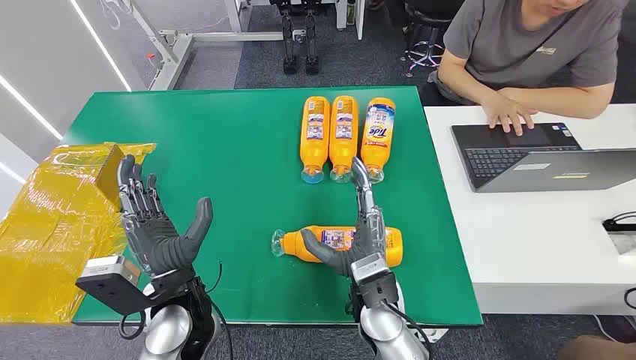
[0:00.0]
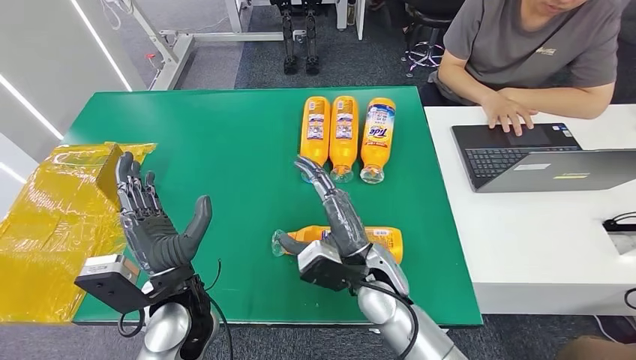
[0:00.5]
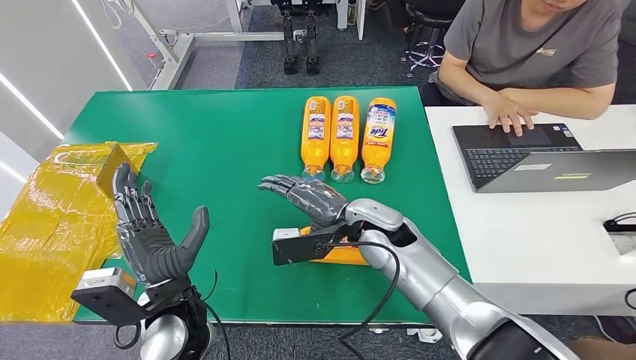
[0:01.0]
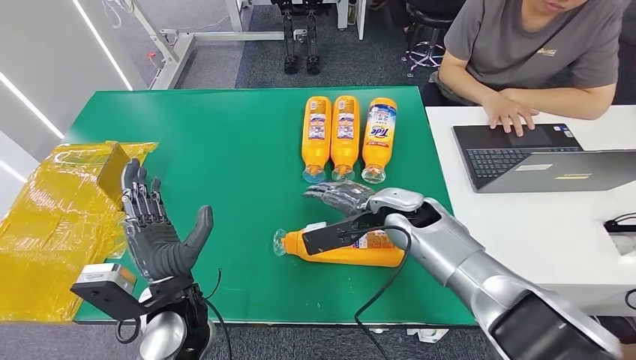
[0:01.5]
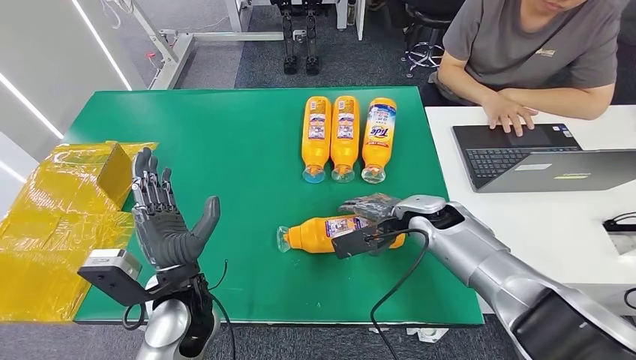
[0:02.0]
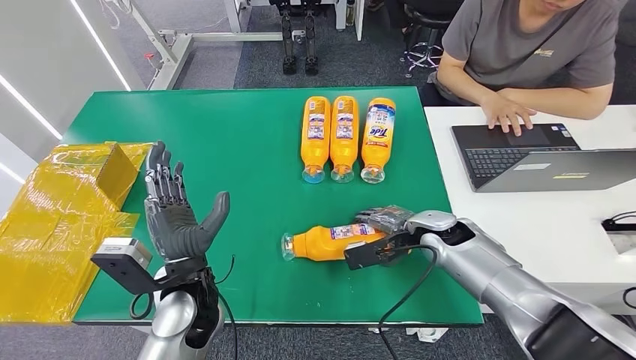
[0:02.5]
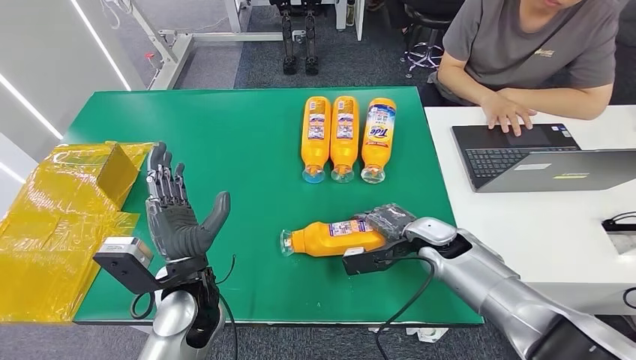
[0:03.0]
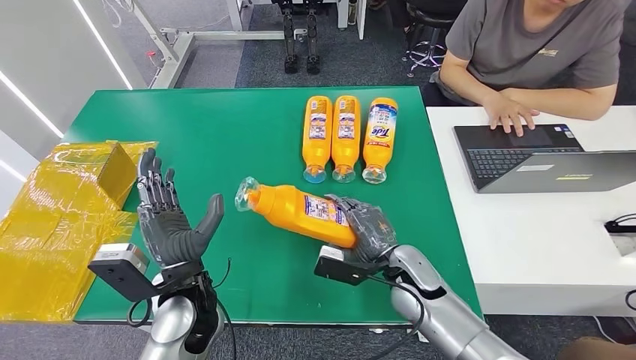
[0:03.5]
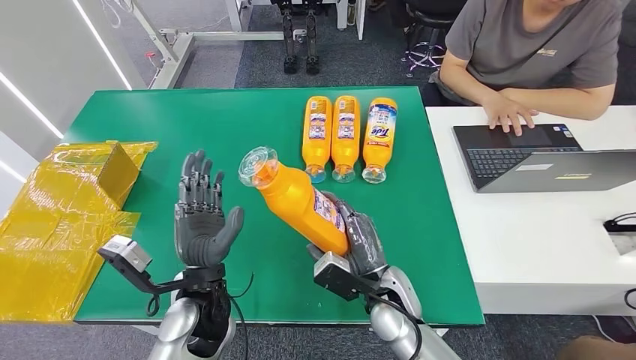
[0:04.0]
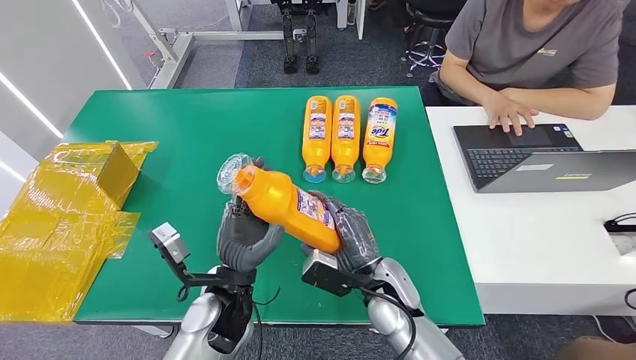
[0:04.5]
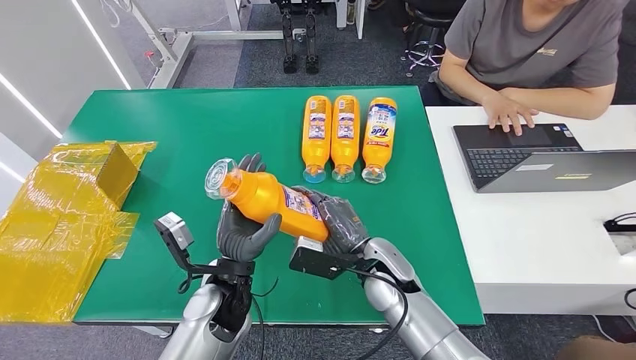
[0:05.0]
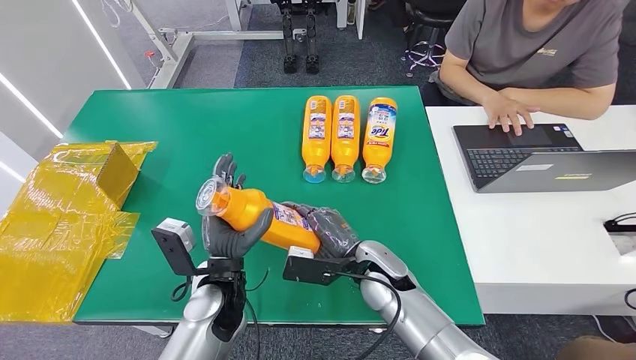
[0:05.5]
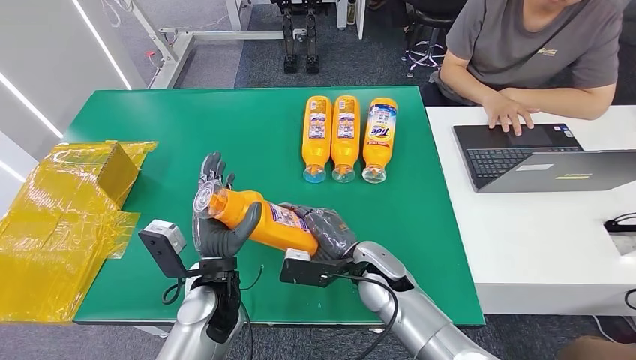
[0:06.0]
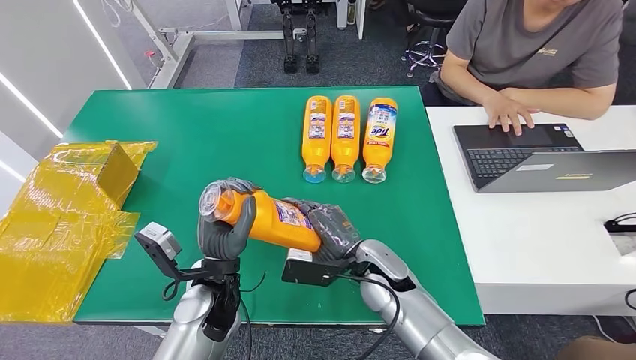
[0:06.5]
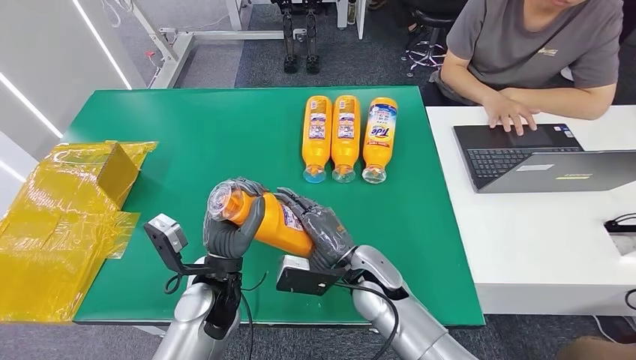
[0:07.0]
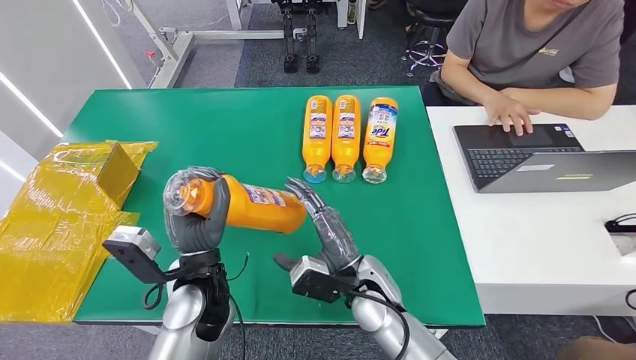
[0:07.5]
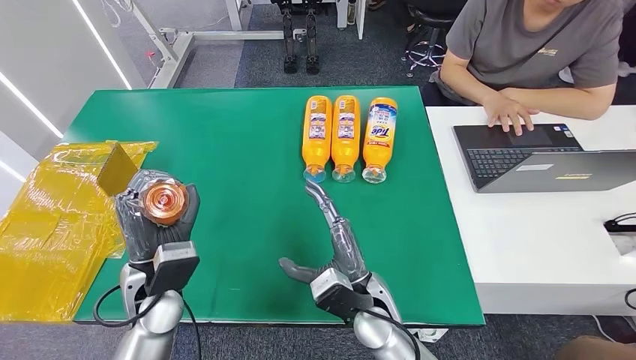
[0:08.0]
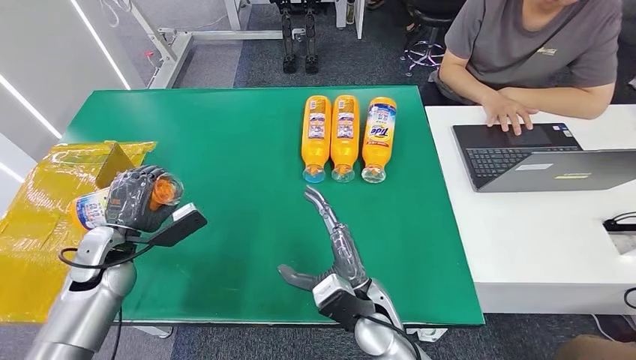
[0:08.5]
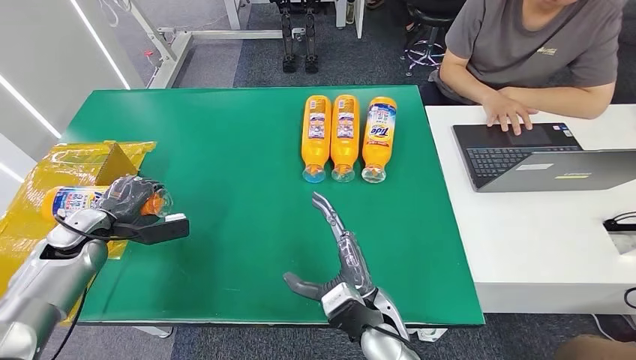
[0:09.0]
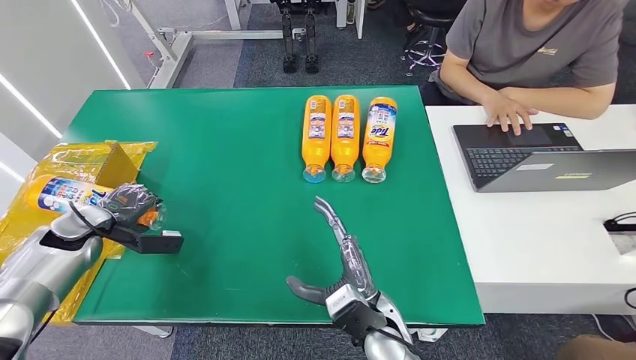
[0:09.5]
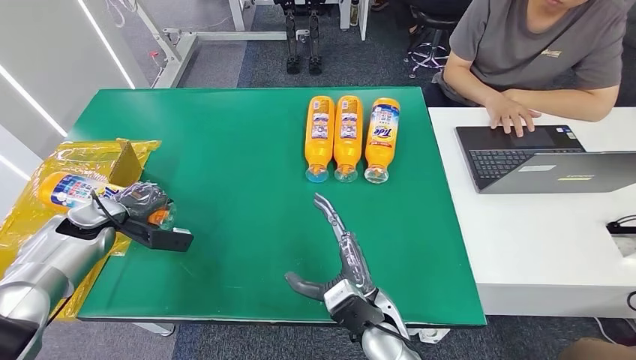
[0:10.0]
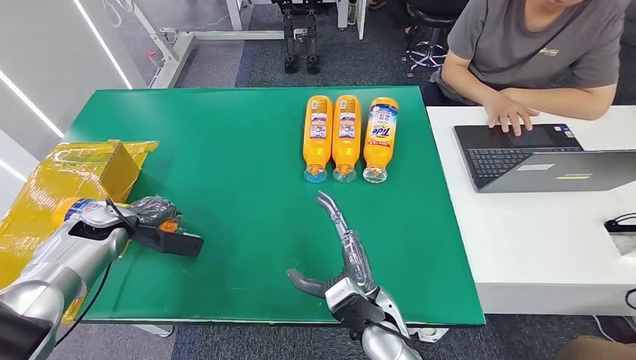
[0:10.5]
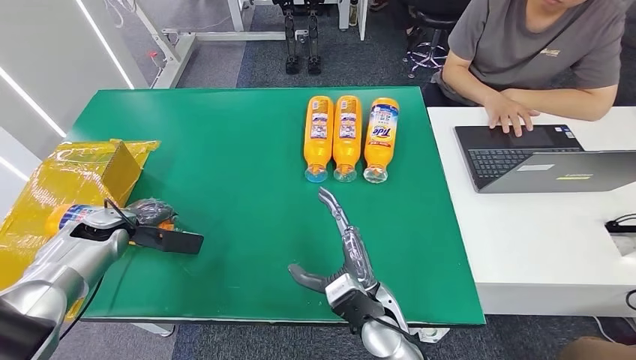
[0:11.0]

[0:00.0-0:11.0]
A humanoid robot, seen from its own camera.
Step, 0:00.0 to 0:03.5: Pick up the bottle from the table.
0:02.0 to 0:03.5: The right hand heads backward and downward, covering approximately 10 cm.
0:03.5 to 0:05.5: The left hand moves some 5 cm. Meanwhile the right hand is displaced to the left by approximately 5 cm.
0:07.5 to 0:09.0: The right hand heads backward, covering some 5 cm. The left hand is displaced to the left and forward by some 30 cm.

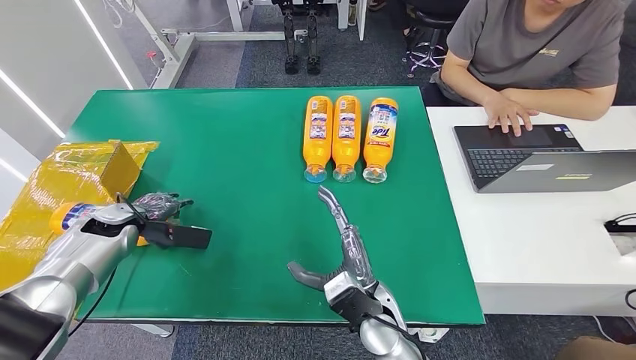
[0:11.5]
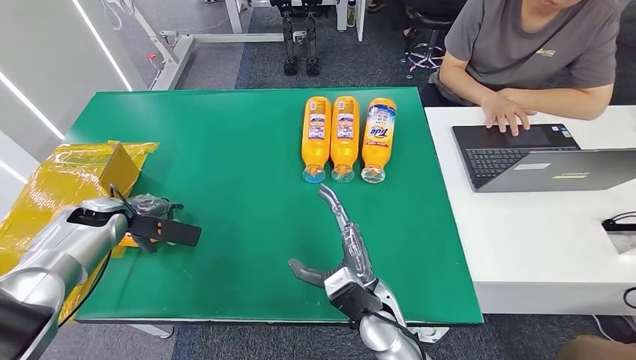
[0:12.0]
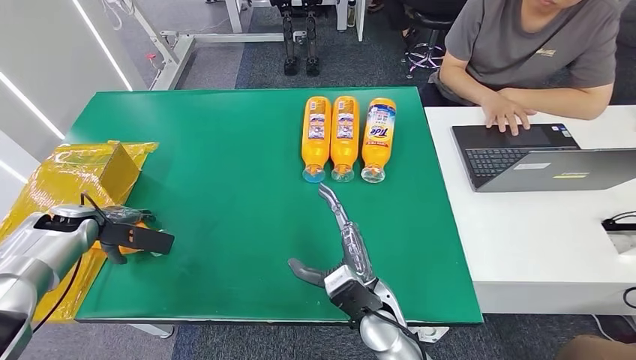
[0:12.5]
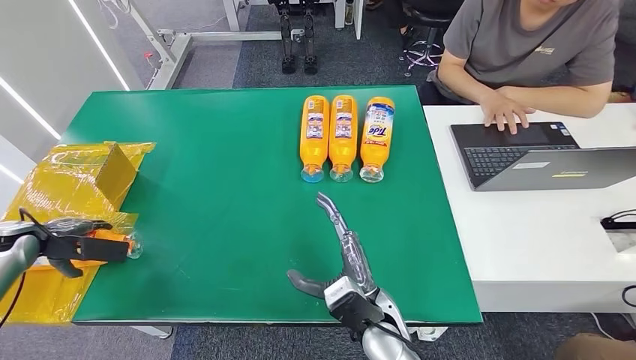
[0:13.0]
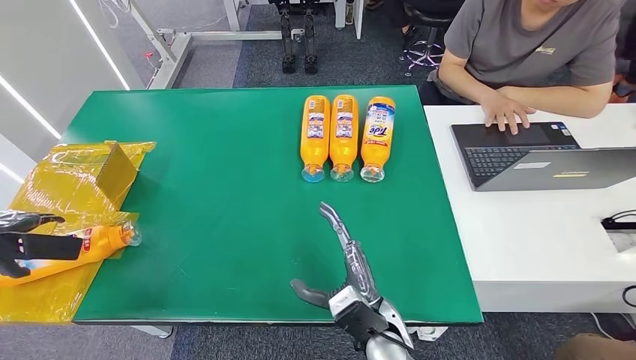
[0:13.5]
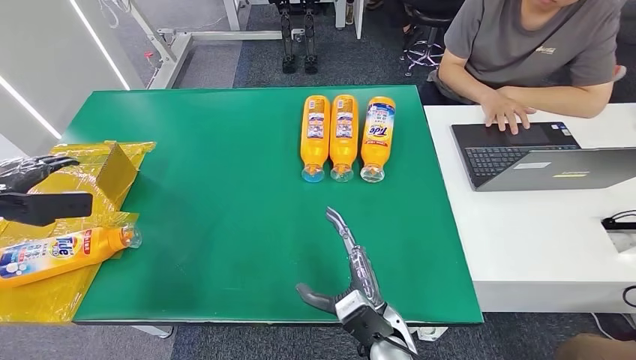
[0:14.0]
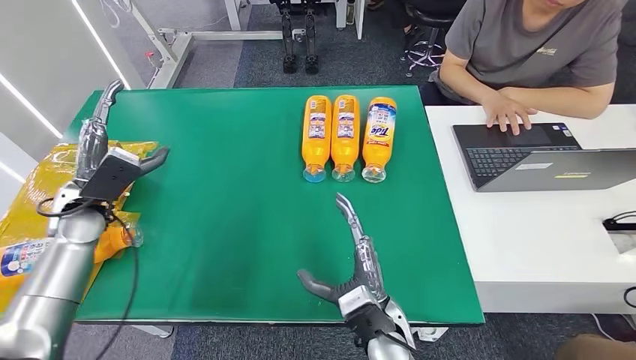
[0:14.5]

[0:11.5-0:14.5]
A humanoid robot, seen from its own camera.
Step, 0:11.5 to 0:14.5: Turn the bottle to the front side.
0:13.0 to 0:14.5: The left hand moves to the right, approximately 15 cm.

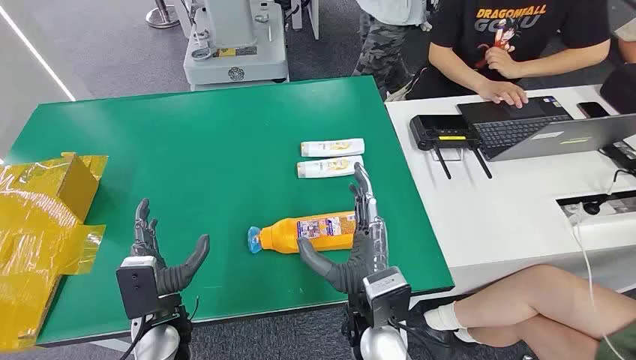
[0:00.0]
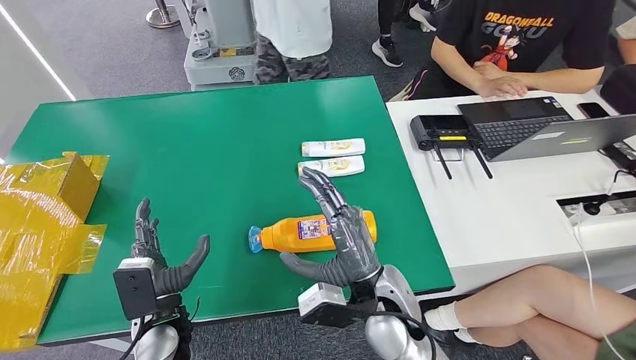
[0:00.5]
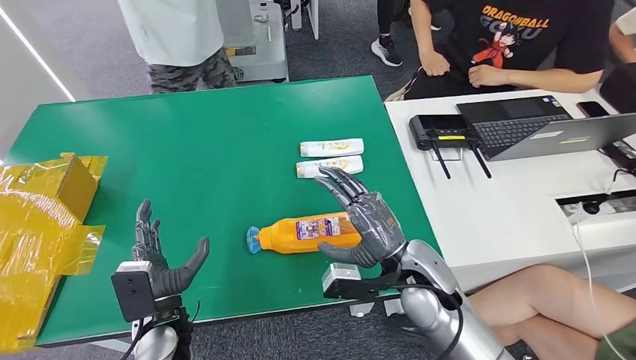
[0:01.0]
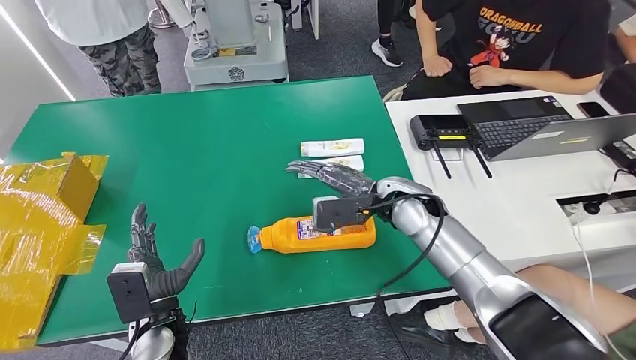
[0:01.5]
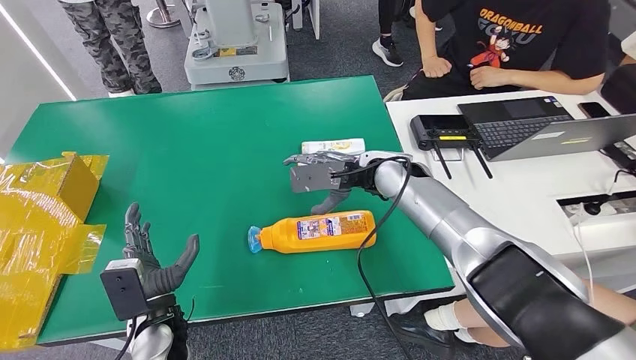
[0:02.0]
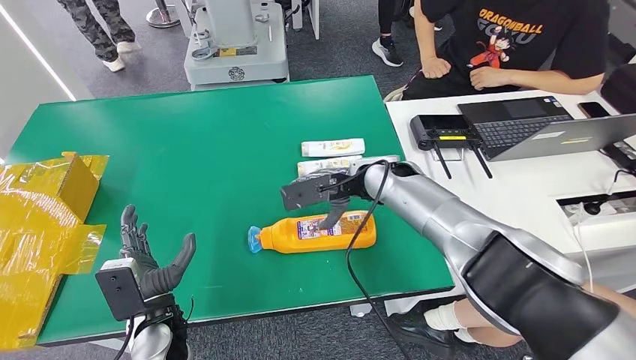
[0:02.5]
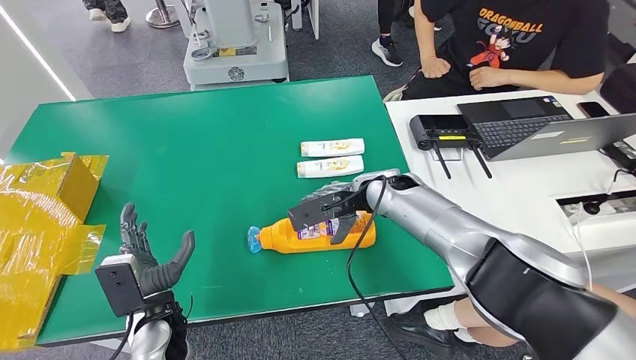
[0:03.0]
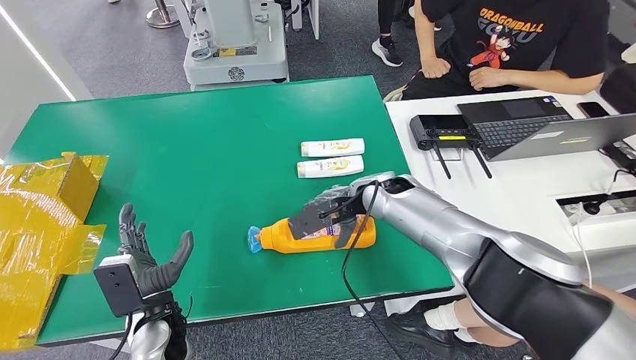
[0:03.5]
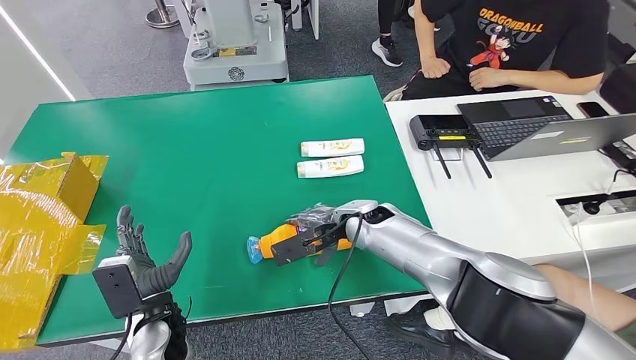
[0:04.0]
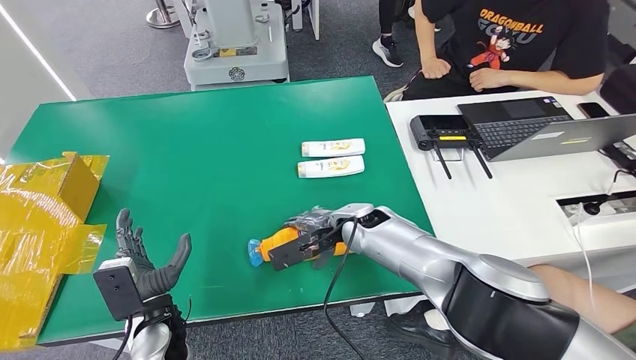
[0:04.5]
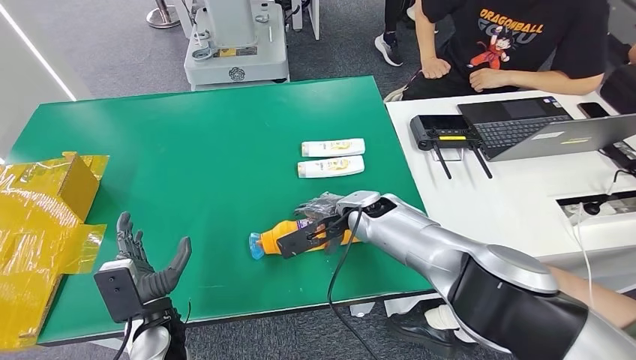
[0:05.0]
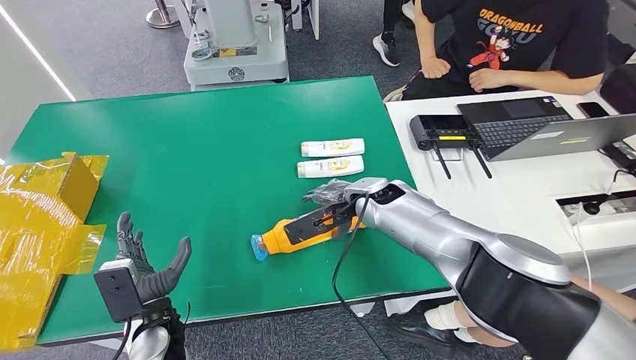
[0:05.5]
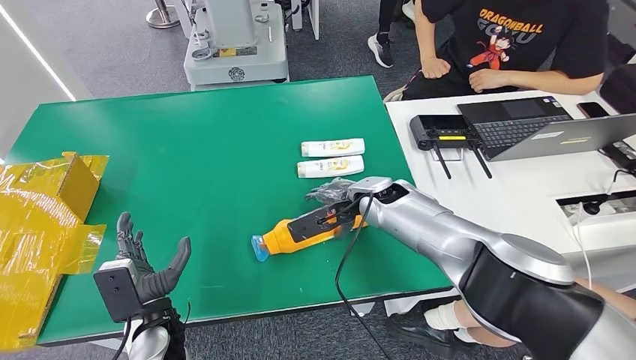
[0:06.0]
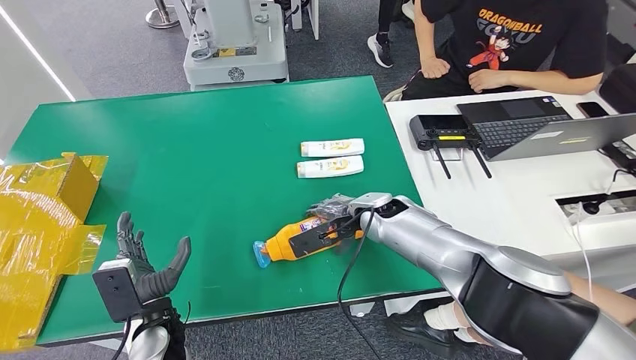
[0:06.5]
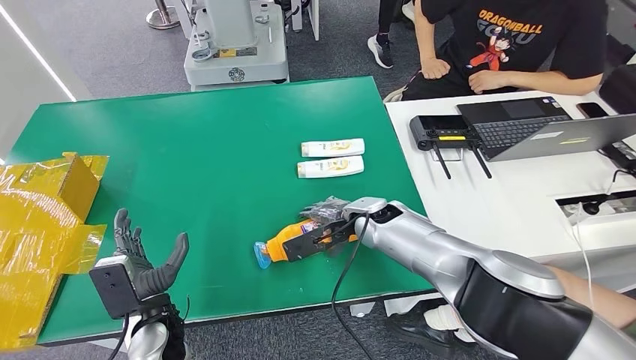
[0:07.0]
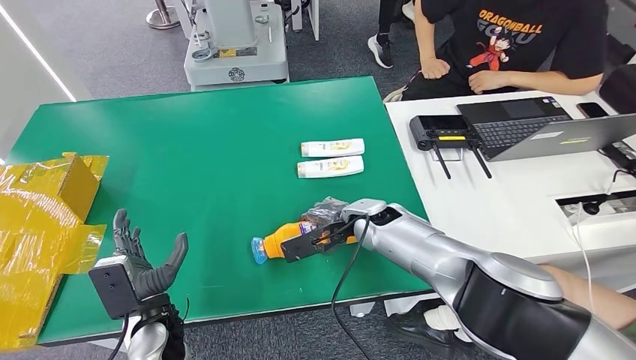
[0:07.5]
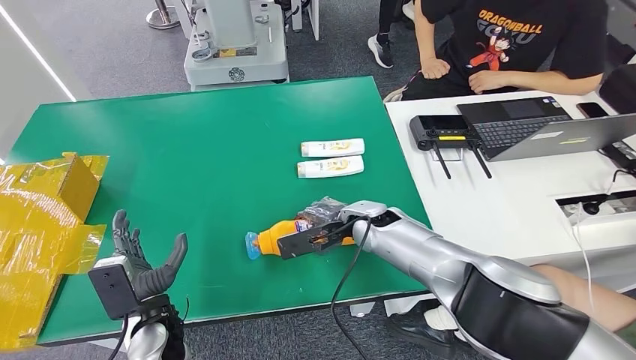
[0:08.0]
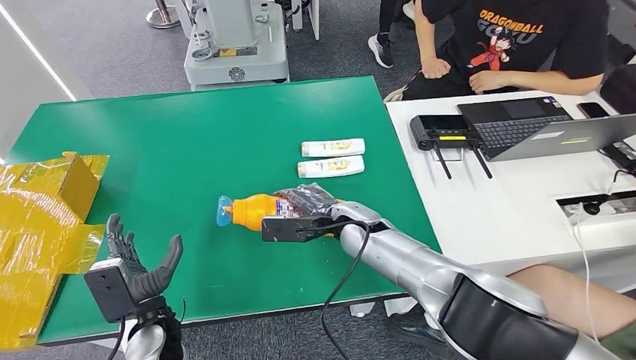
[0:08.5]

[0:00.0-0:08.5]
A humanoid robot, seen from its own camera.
0:02.0 to 0:04.0: The right hand goes approximately 10 cm downward.
0:04.0 to 0:06.5: The hands stay close to where they were, moving slightly.
0:06.5 to 0:08.5: The right hand heads to the left, covering about 5 cm.
